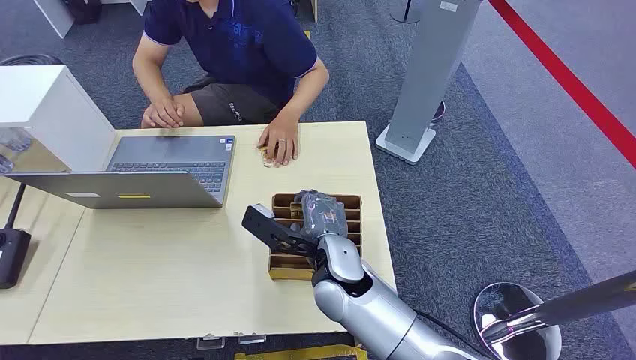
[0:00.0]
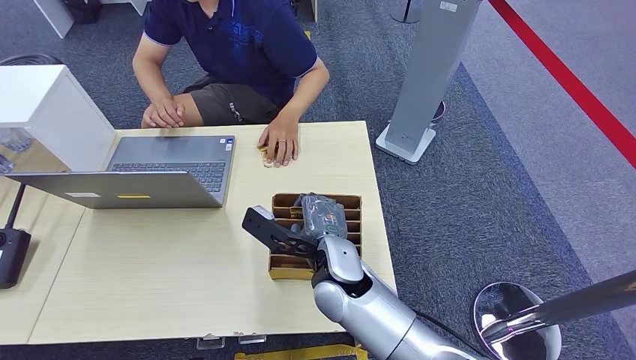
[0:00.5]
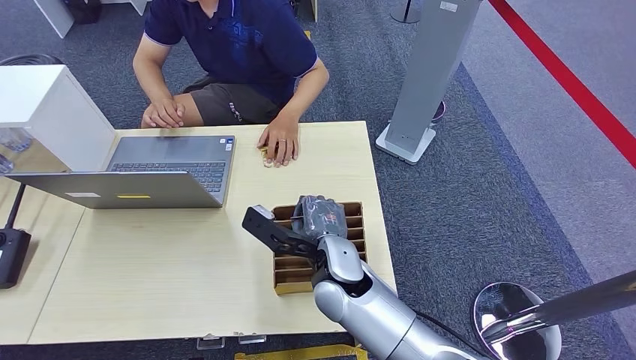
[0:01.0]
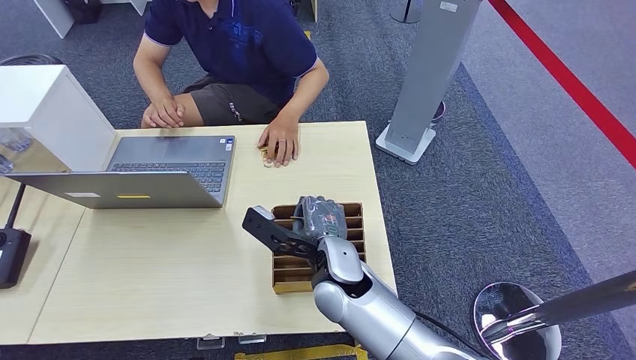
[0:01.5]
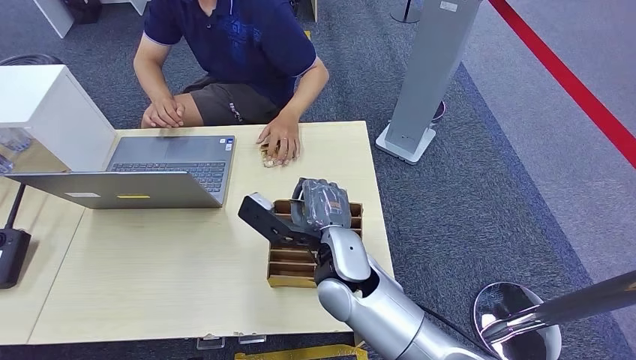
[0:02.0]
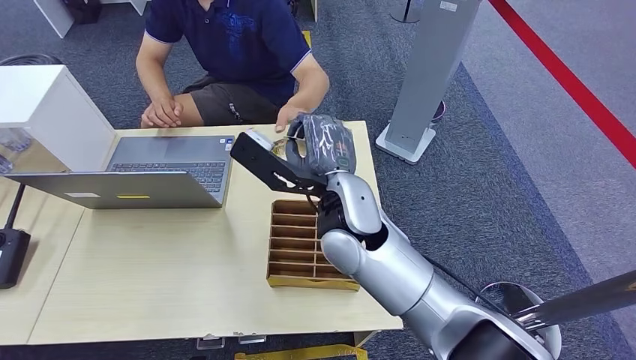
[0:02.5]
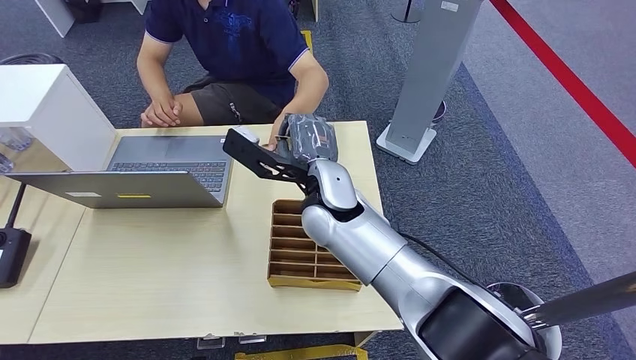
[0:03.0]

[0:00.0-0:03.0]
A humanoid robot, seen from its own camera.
Step, 0:00.0 to 0:01.5: Pick up the room card from the card holder.
Step, 0:02.5 to 0:03.0: Hand the room card to the target.
0:01.5 to 0:03.0: The right hand heads upward and forward, covering some 15 cm.
